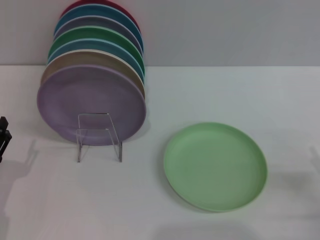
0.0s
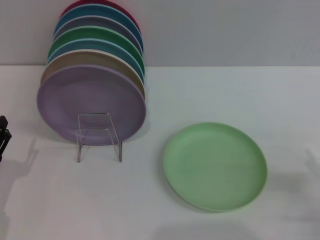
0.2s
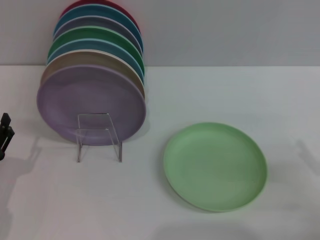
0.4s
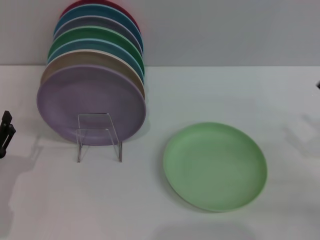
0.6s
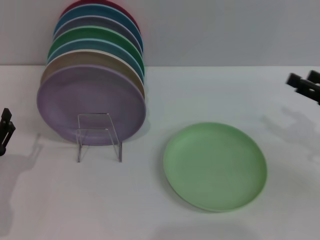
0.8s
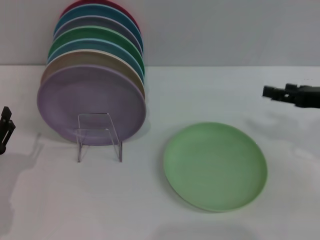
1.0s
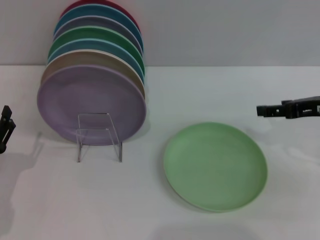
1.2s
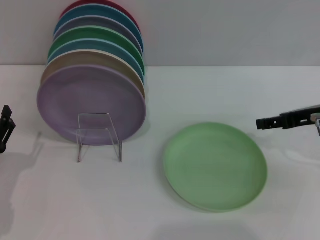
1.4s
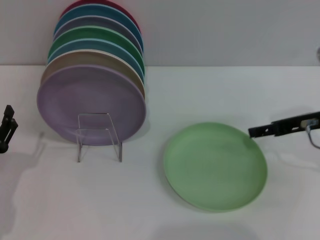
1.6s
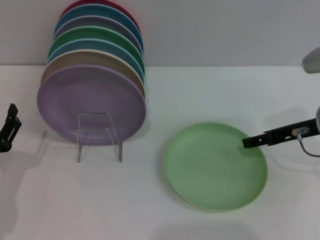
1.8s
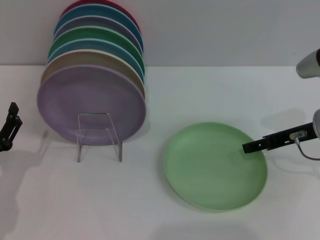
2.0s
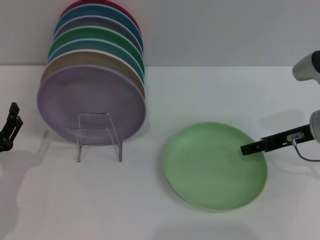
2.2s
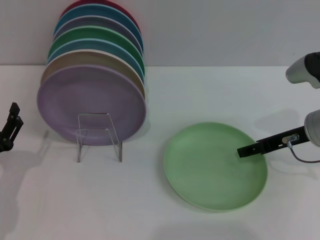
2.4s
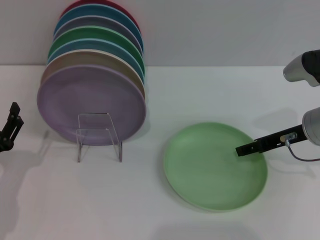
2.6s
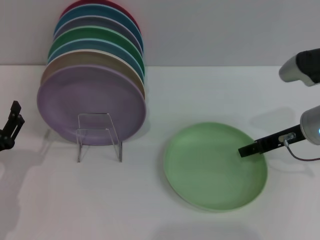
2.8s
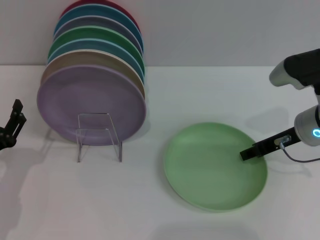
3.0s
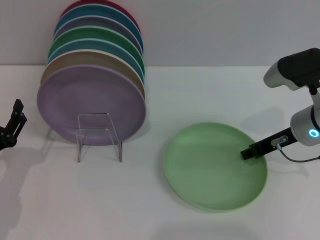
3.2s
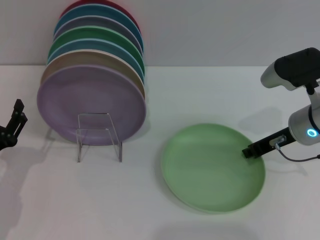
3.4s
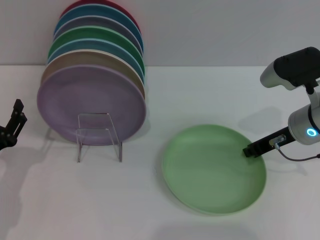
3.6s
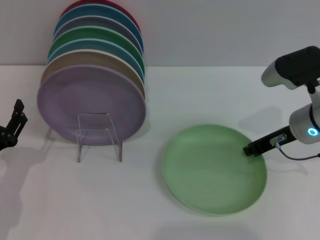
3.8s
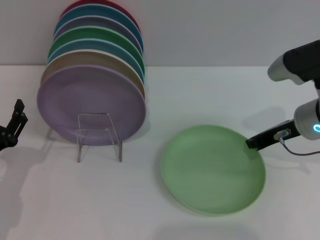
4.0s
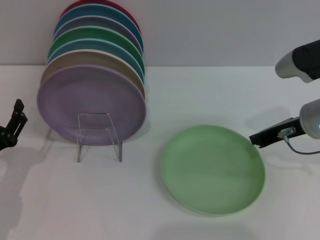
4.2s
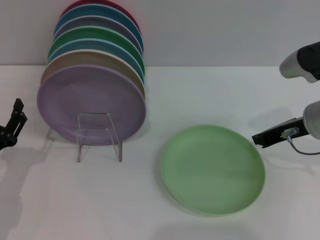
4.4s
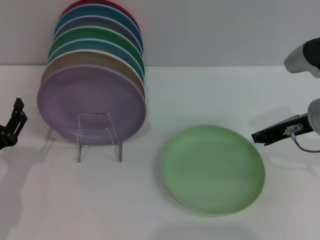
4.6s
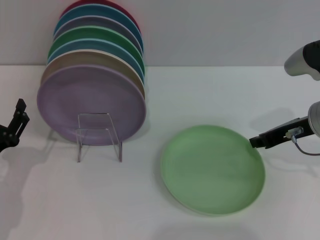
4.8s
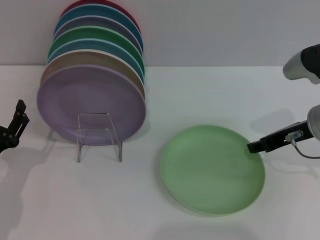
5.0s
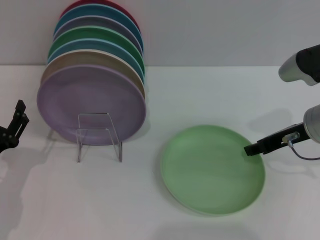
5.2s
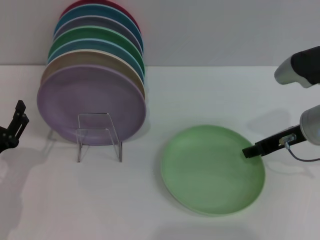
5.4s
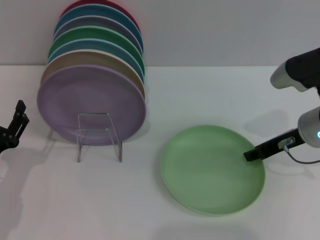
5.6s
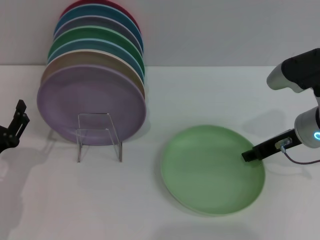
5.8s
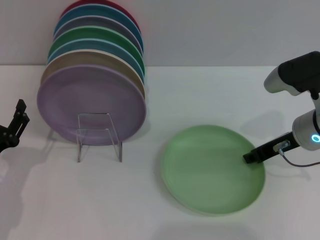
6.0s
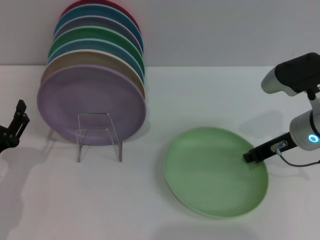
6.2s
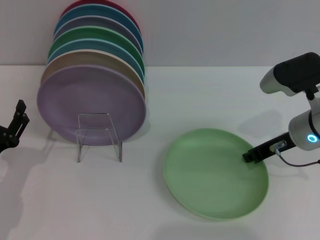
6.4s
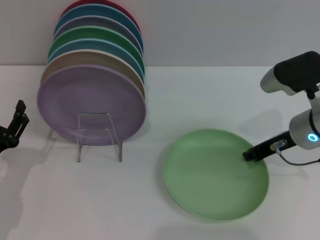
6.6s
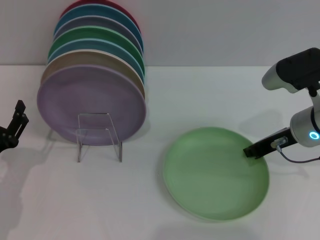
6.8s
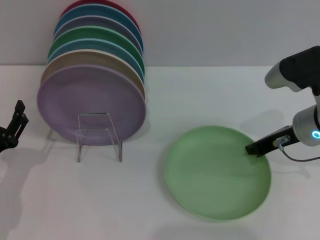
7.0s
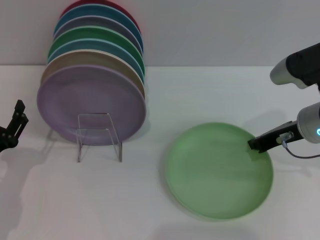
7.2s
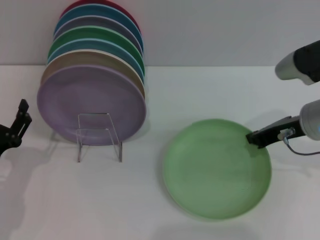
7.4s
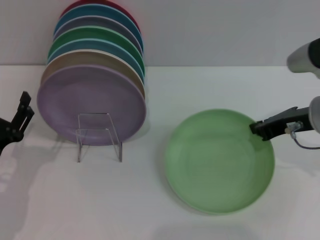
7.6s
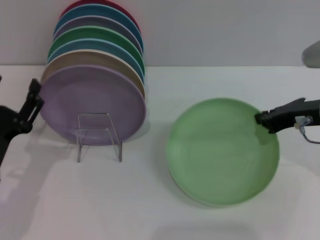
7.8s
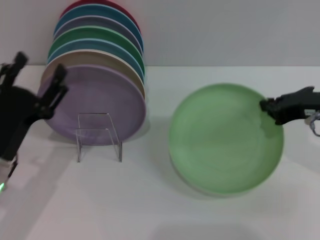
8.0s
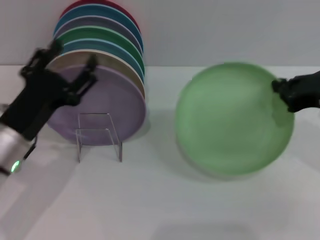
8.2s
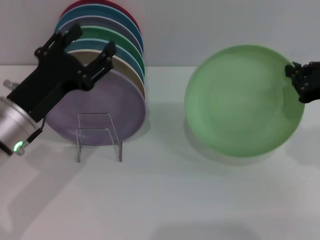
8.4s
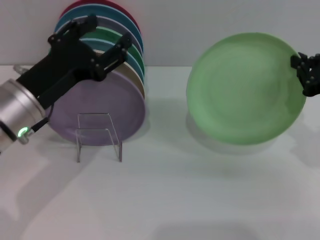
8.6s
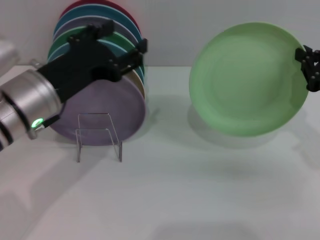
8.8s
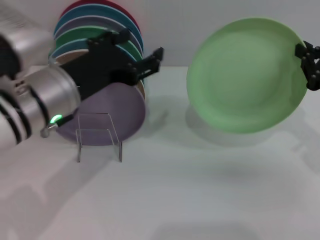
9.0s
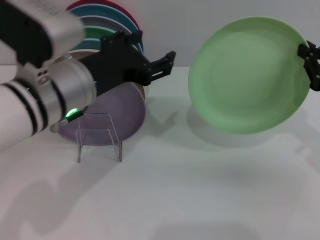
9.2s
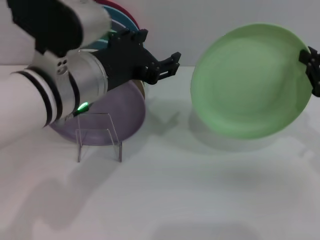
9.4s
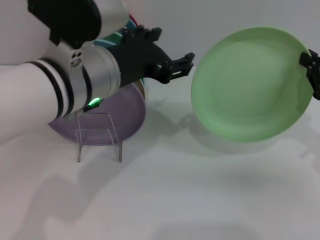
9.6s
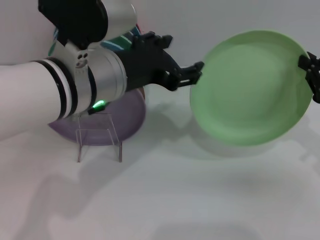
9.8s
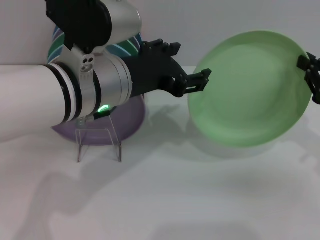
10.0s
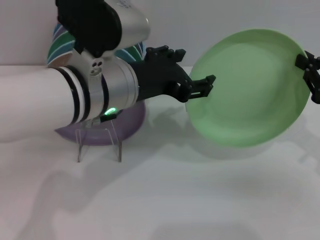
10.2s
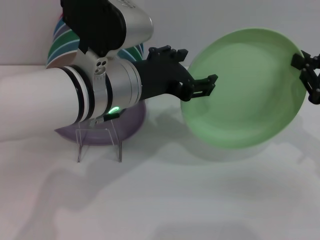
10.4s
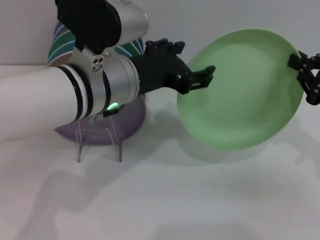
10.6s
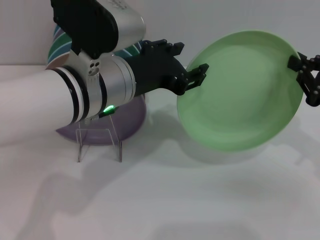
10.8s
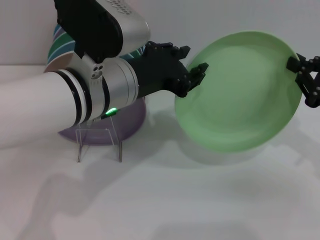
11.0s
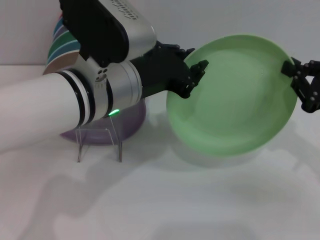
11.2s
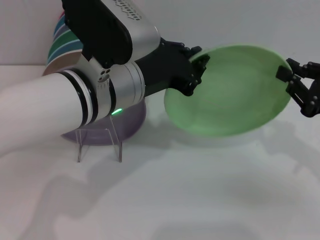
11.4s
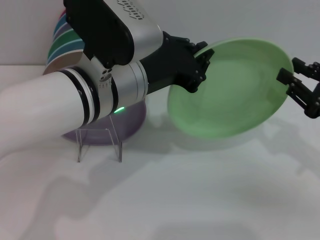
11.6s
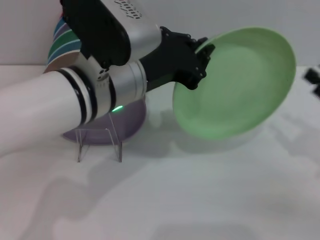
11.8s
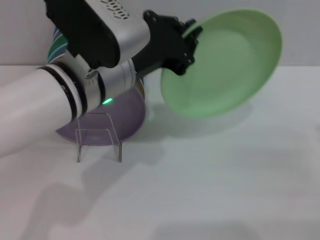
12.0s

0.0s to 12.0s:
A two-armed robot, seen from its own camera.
Task of the whole recording: Grip the plate with one hand, pass it to the other, then set it on the shelf.
Step, 0.0s to 8.2s: Pick up the plate with the right gripper.
0.0s to 1.6s: The right gripper goes about 20 cm forward, upward and to the left.
1.6s to 3.0s: The grippers make only small movements.
3.0s to 4.4s: The right gripper closes.
4.4s to 6.0s: The right gripper opens its fingers.
6.0s to 7.6s: The right gripper closes.
7.6s to 9.0s: The right gripper is displaced to the right by roughly 5 cm, while the left gripper is displaced upward, to the right and forward by some 20 cm.
9.0s to 10.4s: The left gripper goes approximately 5 cm to the right.
10.4s to 12.0s: The right gripper moves backward and to the right, some 10 cm, and opens its fingers, while the left gripper closes up.

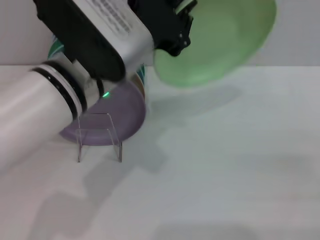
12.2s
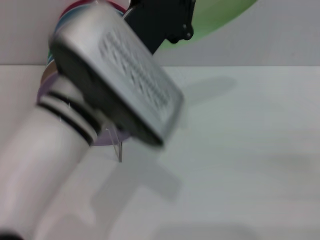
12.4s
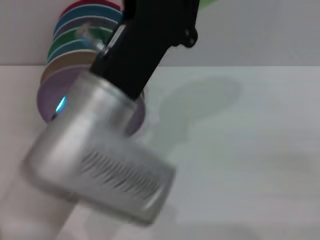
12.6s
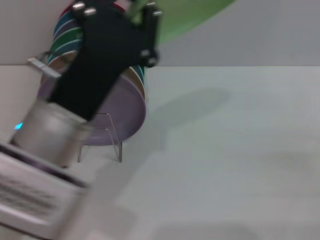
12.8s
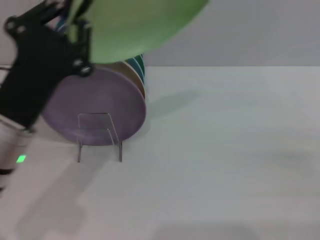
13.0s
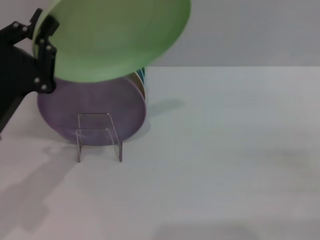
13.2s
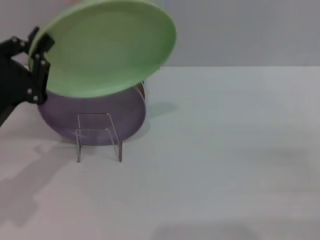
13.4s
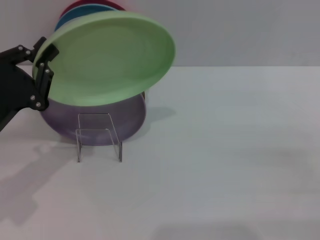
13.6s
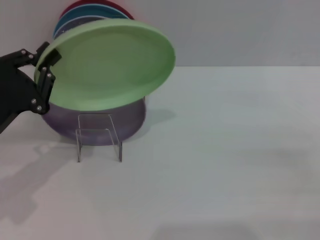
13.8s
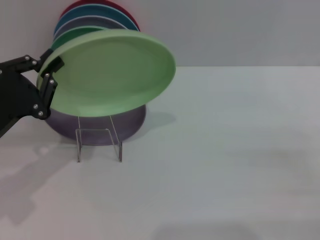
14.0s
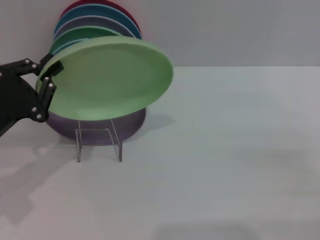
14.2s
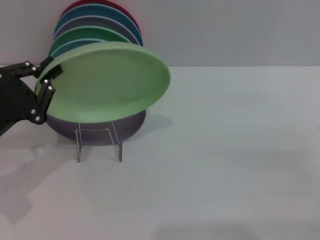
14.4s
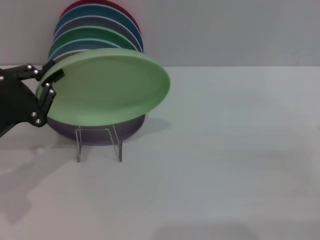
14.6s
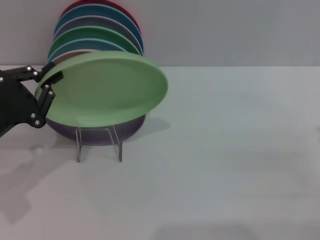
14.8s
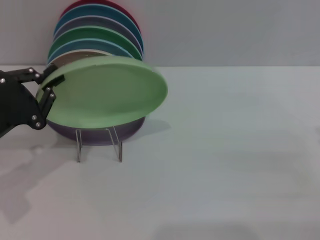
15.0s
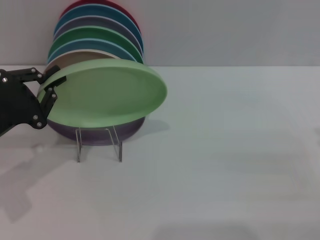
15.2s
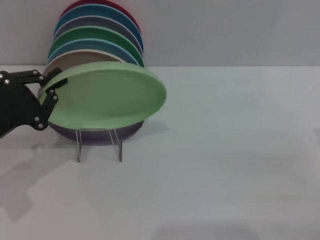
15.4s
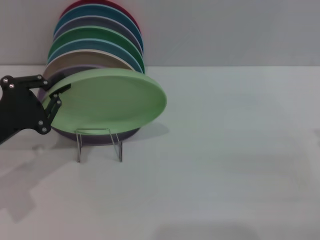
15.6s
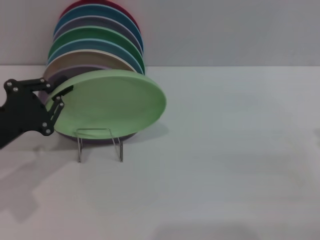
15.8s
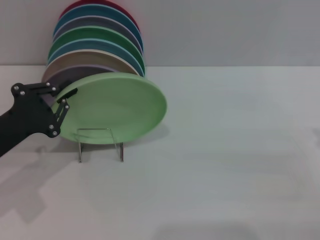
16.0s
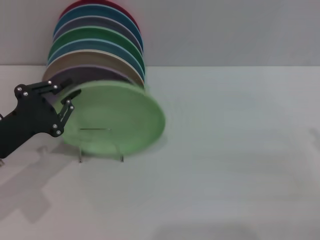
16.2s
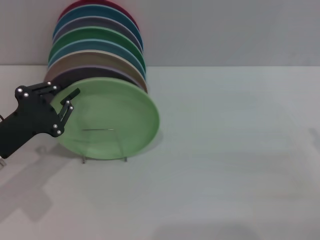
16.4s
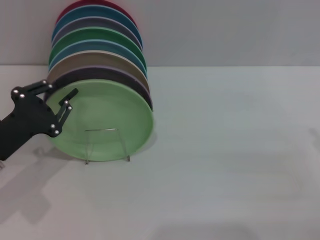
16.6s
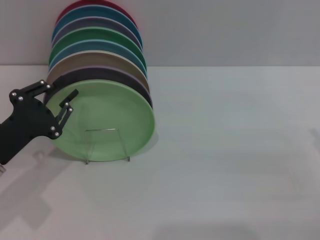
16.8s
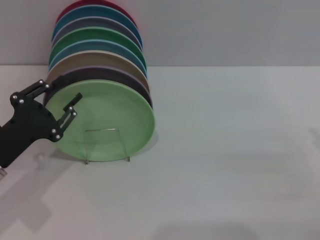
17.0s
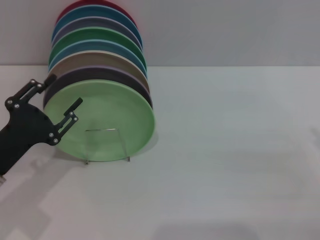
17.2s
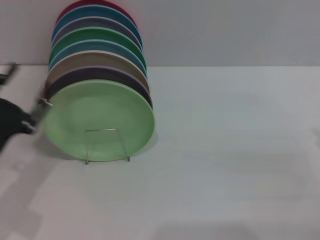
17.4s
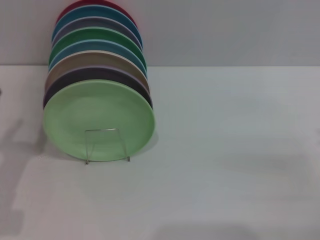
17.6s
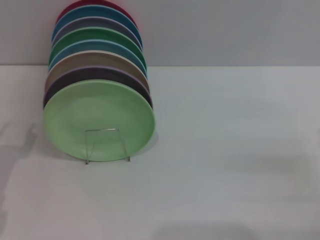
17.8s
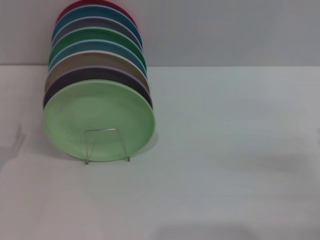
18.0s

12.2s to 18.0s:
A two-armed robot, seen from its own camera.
Task of the whole recording: Grip the plate with one hand, pass it to the other, then set it on the shelf.
Step, 13.0s to 17.2s: Place the plate on the shelf with the left gripper.
12.2s to 13.6s: The left gripper moves to the left and downward, some 20 cm.
13.6s to 15.0s: The grippers make only small movements.
15.0s to 16.6s: The grippers move only a little.
16.6s to 18.0s: The left gripper shifts about 5 cm backward, and opens up.

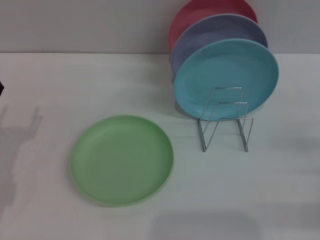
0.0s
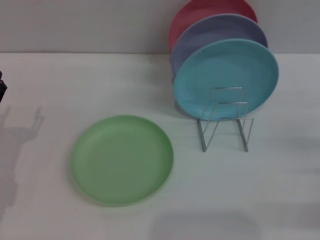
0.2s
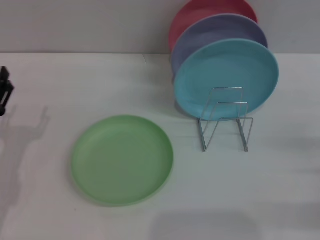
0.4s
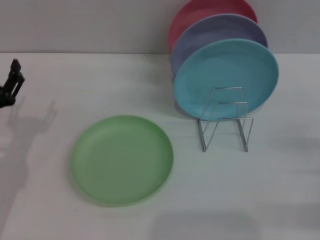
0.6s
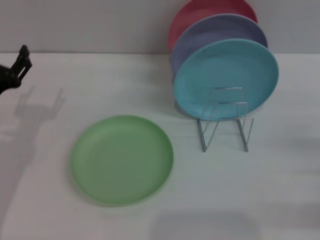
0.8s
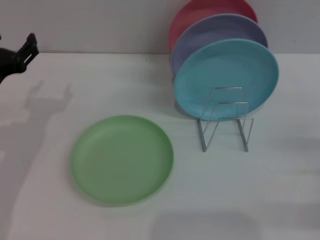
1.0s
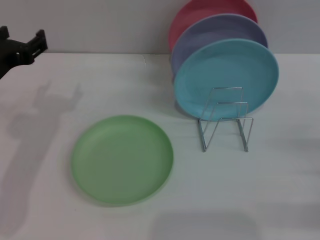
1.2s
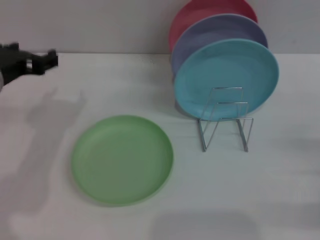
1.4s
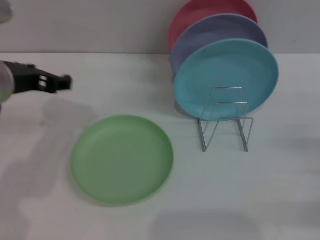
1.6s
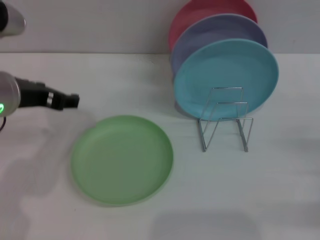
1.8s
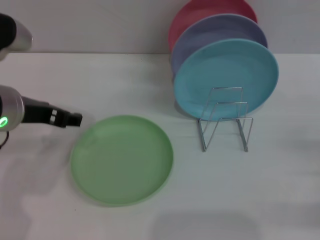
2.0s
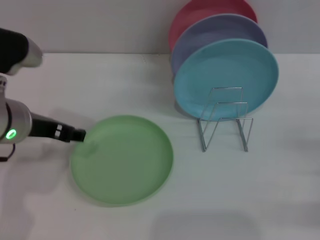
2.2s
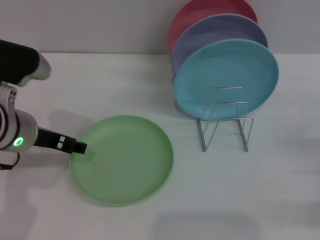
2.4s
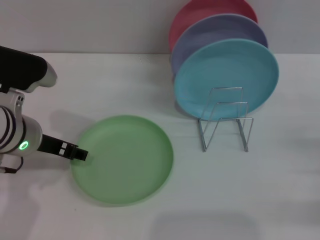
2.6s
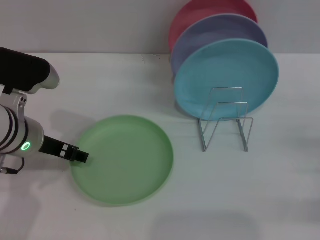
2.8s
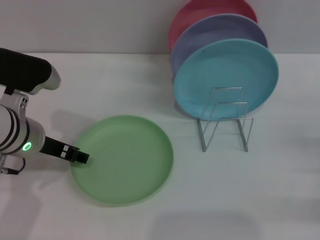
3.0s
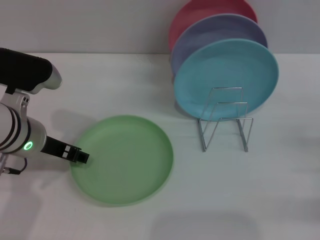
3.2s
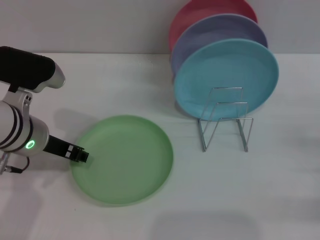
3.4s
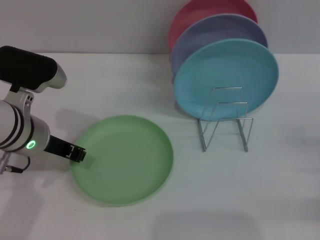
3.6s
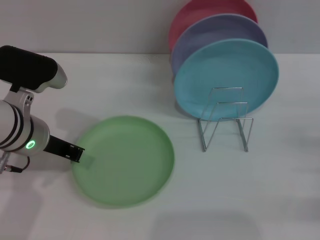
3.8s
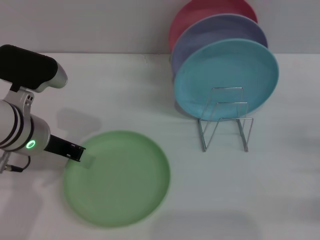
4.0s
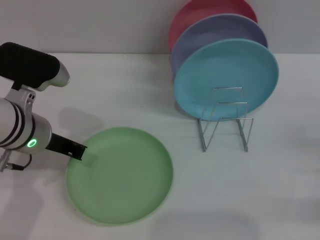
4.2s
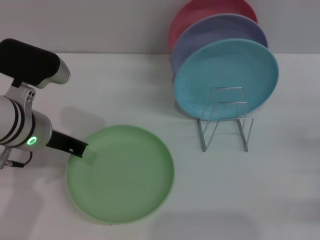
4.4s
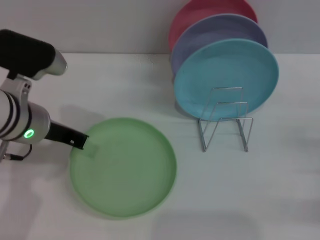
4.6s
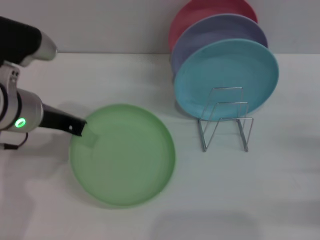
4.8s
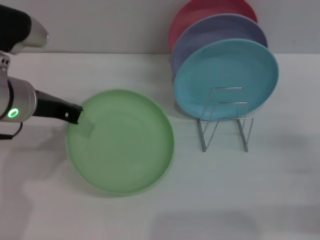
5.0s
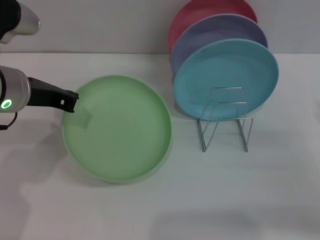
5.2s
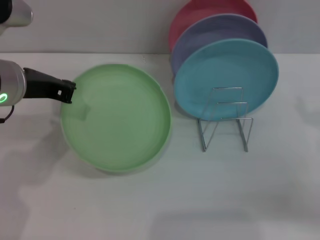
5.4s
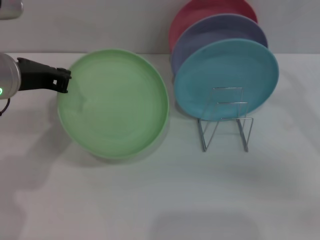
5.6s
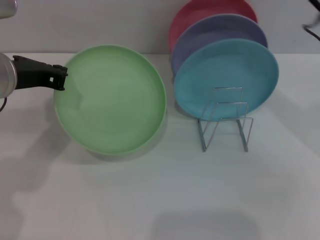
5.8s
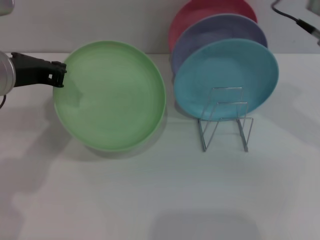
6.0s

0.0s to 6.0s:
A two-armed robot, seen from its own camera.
Task of the whole recording: Grip the plate with one hand, pass it to the other, then set it on the shelf.
Step, 0.0s to 4.8s: Pick up the plate with the left gripper.
0.0s to 1.6s: The left gripper moves upward and to the right, approximately 20 cm.
1.6s to 3.0s: The left gripper moves downward, about 10 cm.
3.0s to 4.4s: The left gripper closes.
4.4s to 6.0s: The right gripper shifts about 30 cm upward, to the left and forward; the left gripper shifts approximately 5 cm upward.
